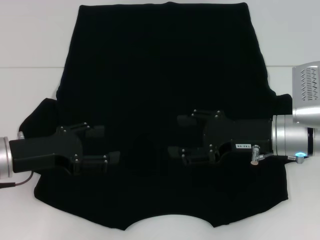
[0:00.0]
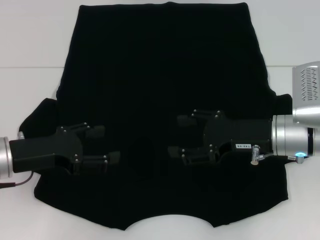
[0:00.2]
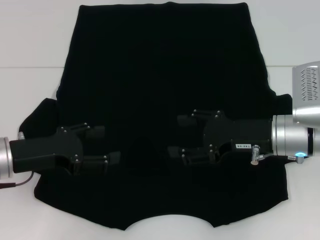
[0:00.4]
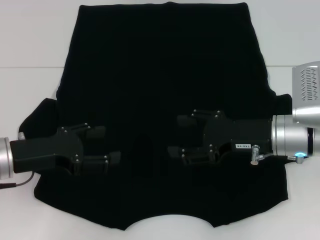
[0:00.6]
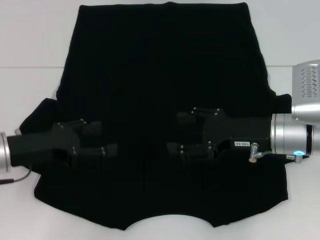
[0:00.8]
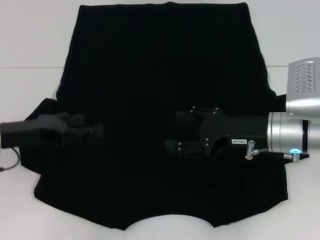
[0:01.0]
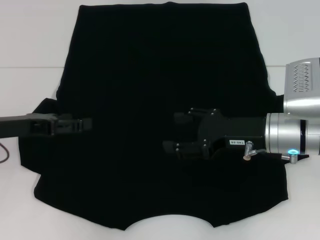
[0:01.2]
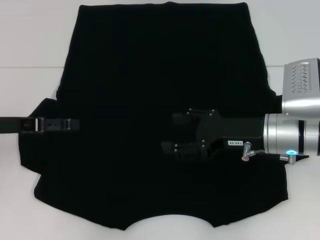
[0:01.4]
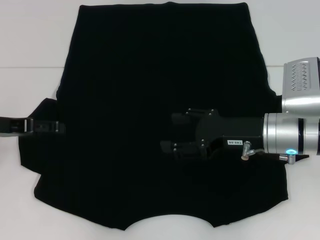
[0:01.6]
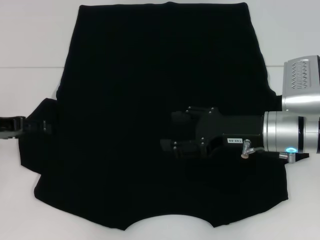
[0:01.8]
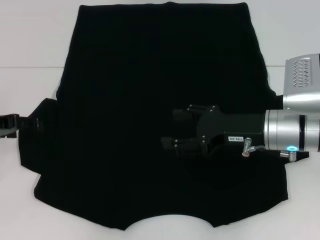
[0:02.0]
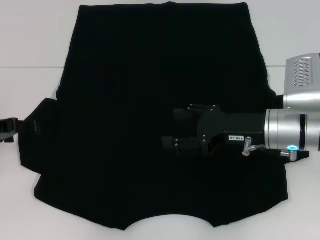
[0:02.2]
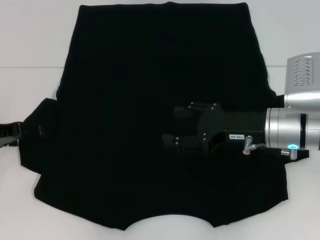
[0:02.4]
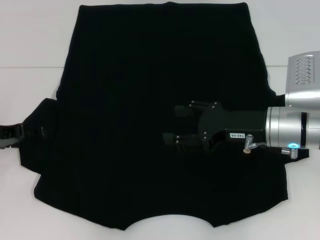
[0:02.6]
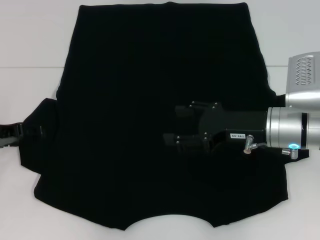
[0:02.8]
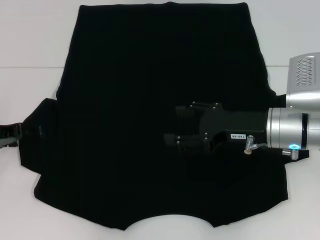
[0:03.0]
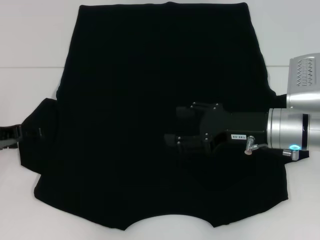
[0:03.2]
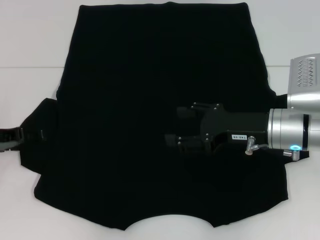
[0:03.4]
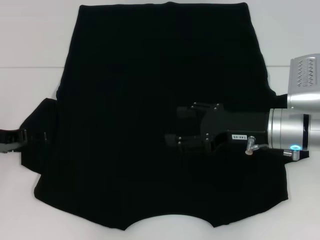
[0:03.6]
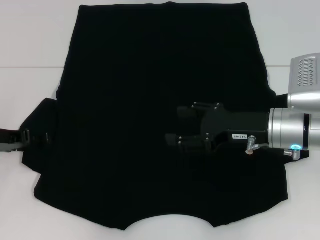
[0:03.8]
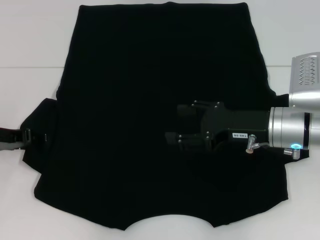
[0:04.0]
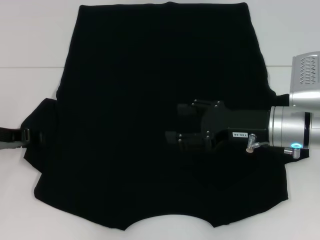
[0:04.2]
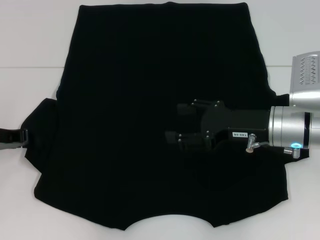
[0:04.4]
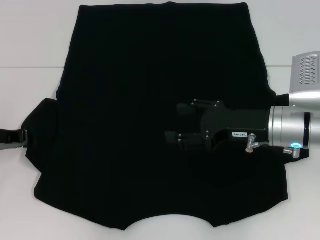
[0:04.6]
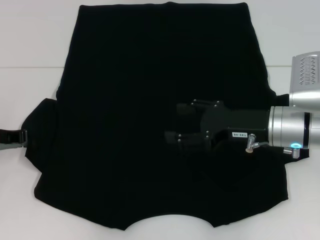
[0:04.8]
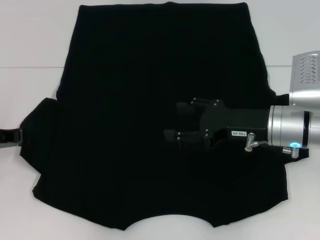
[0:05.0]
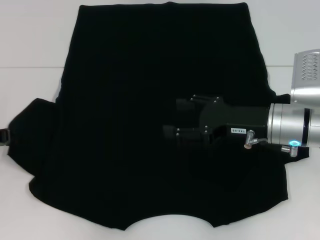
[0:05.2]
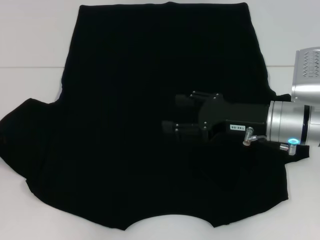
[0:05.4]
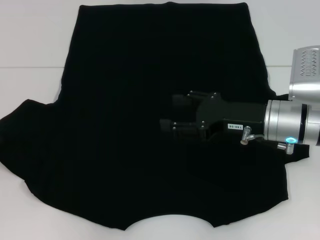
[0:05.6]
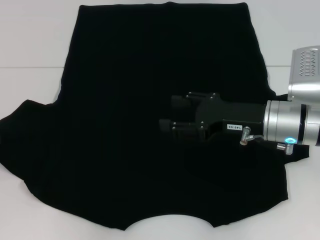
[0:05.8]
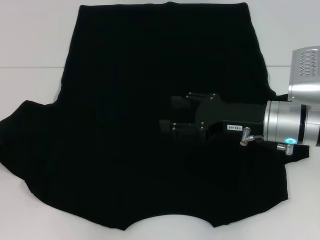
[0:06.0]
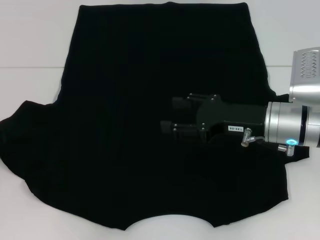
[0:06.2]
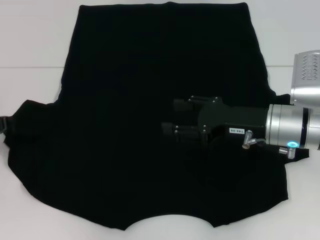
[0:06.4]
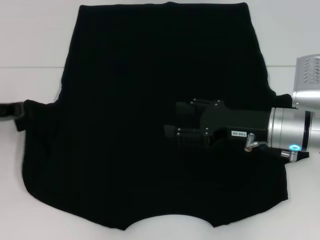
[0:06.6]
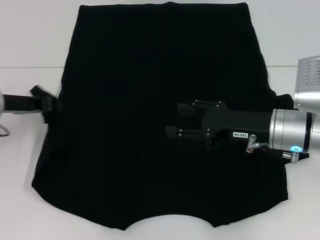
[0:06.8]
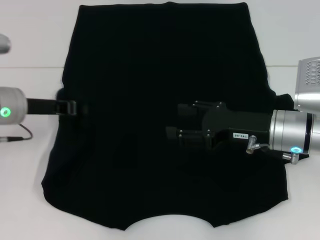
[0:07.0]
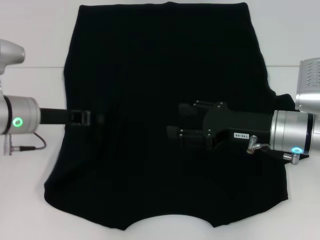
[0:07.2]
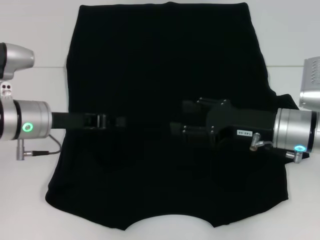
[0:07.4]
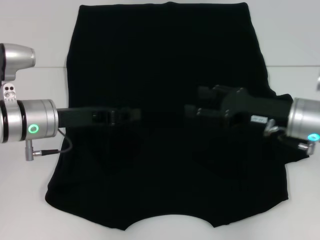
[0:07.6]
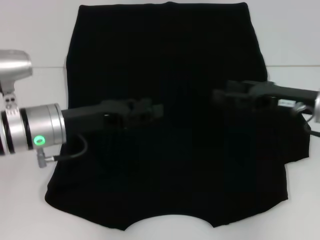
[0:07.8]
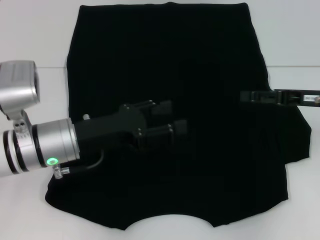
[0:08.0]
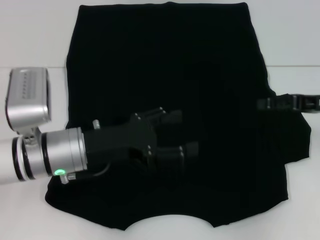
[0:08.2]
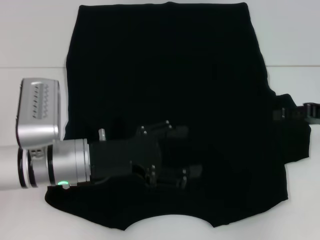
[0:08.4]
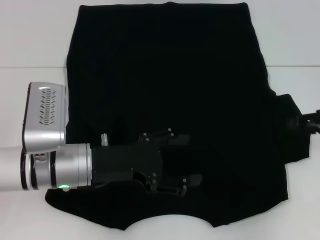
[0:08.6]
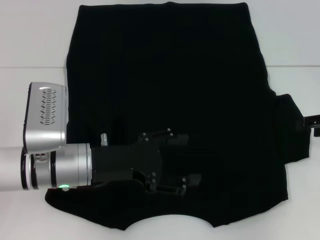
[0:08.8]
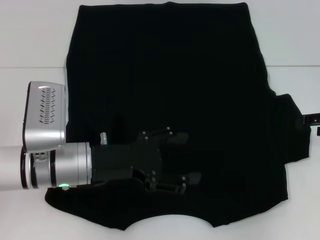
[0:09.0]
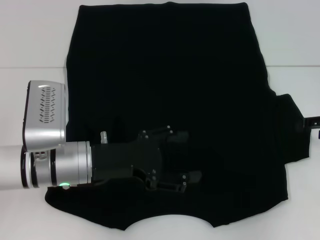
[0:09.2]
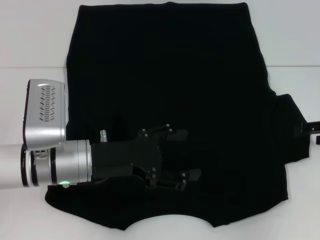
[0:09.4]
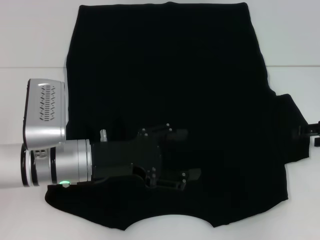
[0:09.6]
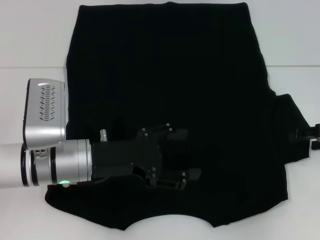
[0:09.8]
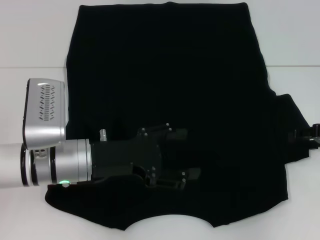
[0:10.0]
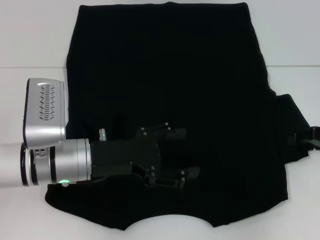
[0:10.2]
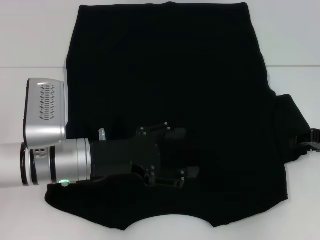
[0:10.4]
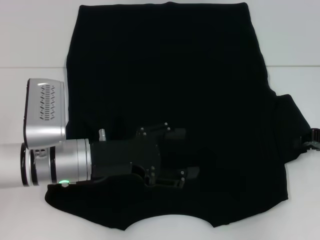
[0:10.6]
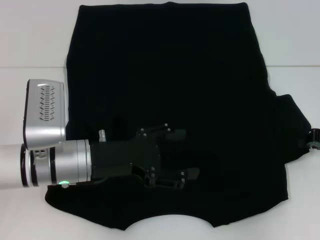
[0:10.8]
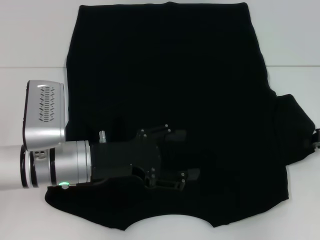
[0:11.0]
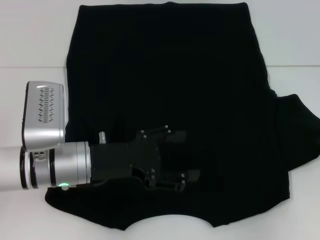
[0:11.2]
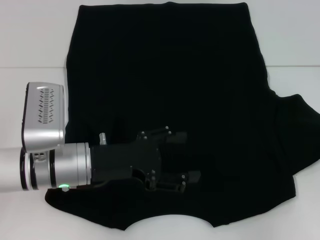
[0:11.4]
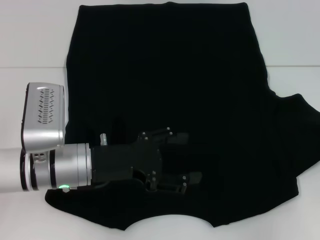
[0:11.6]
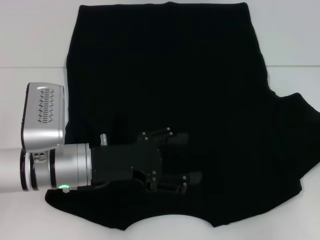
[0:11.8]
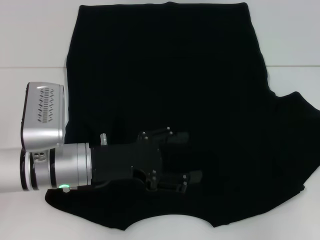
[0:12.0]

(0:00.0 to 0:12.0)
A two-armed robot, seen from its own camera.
Step, 0:00.0 - 0:07.4: Fold the bottom left sleeve with your left hand.
0:00.0 - 0:01.6: The left gripper is displaced to the left by some 5 cm.
0:03.0 - 0:04.4: The left gripper closes up.
0:04.4 - 0:06.0: The left gripper closes up.
0:06.0 - 0:07.6: The left gripper travels to the right by roughly 15 cm.
0:07.6 - 0:09.0: The left gripper travels to the right and backward by roughly 5 cm, and opens up, while the right gripper travels to the right by approximately 15 cm.
0:09.0 - 0:10.4: There are only small adjustments of the grippers.
0:10.4 - 0:12.0: The right gripper closes its fingers.

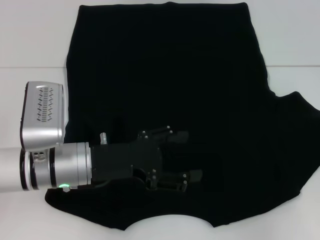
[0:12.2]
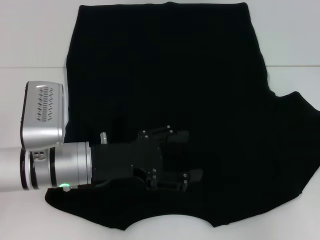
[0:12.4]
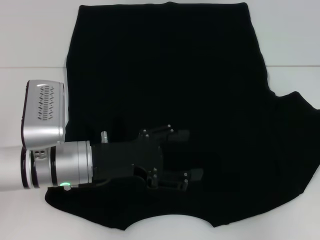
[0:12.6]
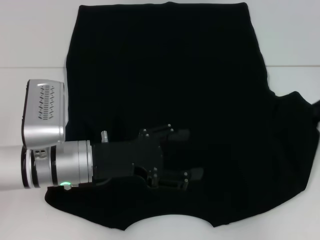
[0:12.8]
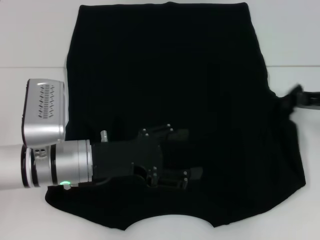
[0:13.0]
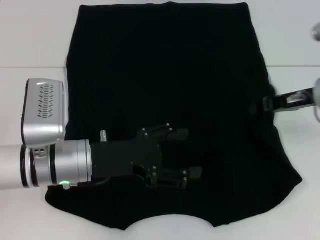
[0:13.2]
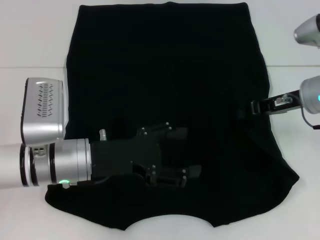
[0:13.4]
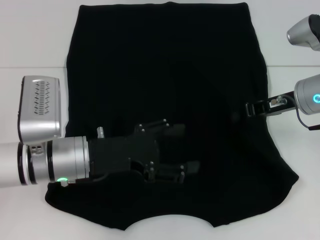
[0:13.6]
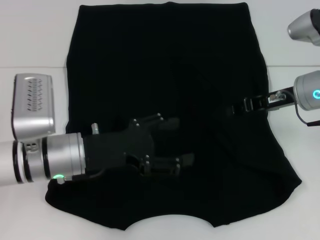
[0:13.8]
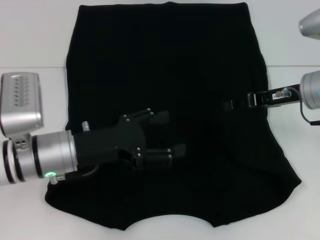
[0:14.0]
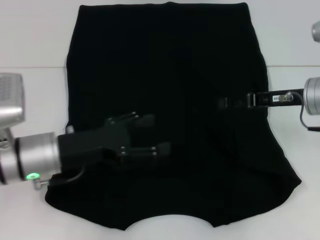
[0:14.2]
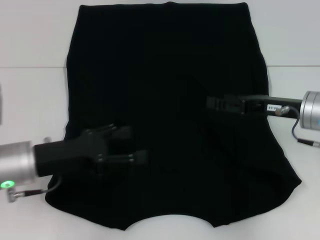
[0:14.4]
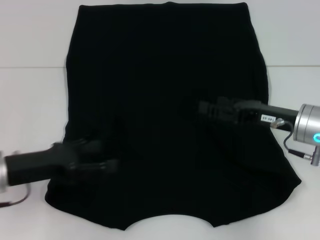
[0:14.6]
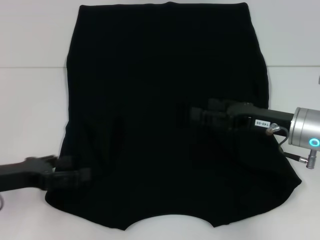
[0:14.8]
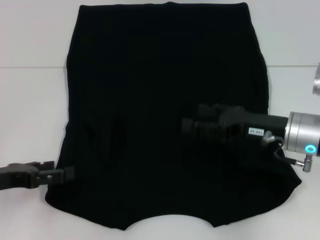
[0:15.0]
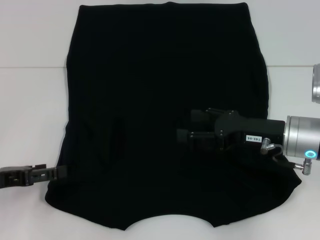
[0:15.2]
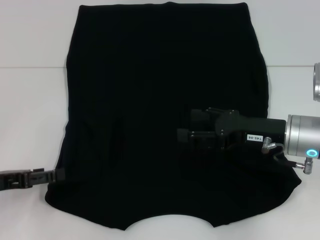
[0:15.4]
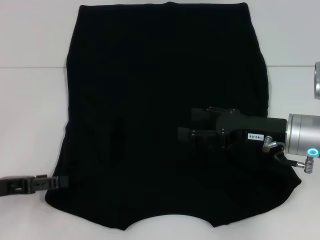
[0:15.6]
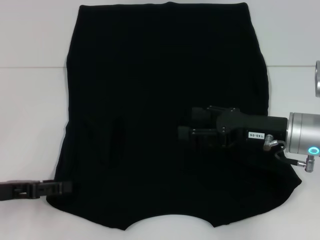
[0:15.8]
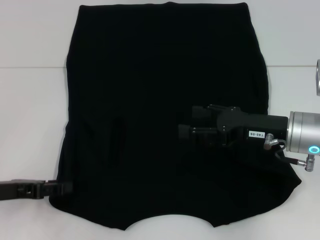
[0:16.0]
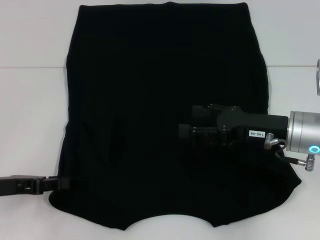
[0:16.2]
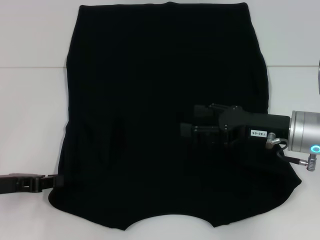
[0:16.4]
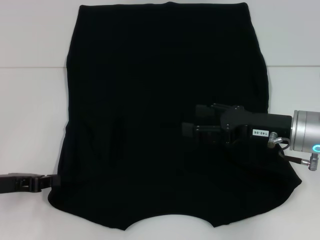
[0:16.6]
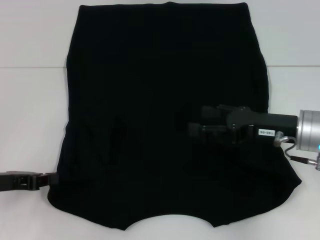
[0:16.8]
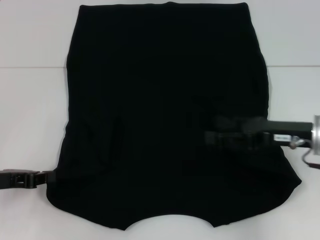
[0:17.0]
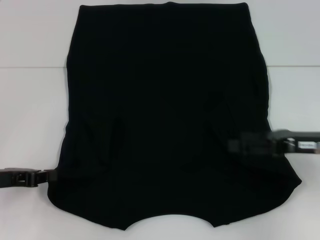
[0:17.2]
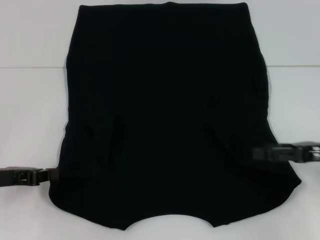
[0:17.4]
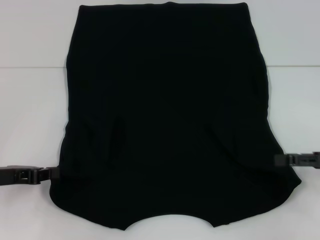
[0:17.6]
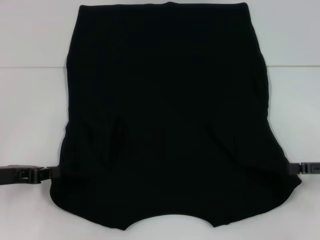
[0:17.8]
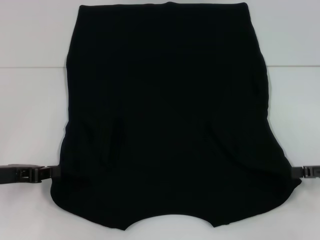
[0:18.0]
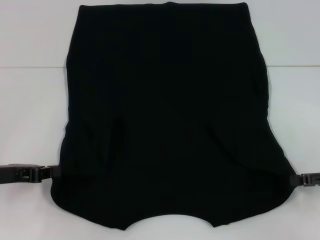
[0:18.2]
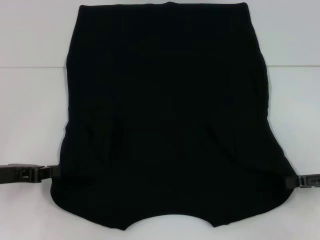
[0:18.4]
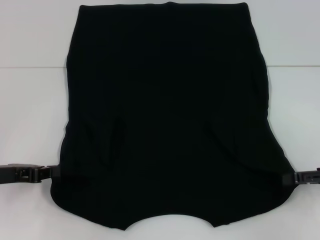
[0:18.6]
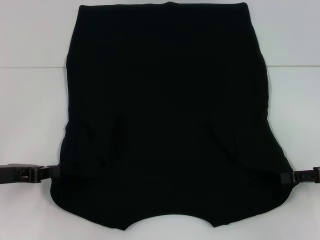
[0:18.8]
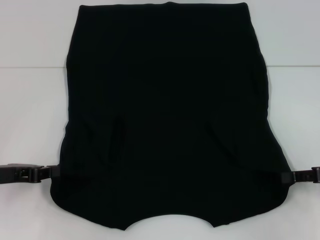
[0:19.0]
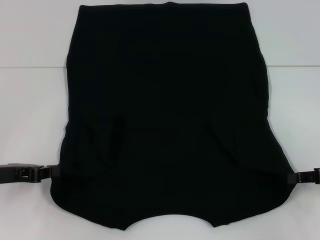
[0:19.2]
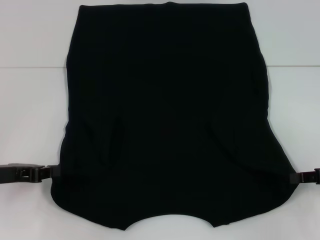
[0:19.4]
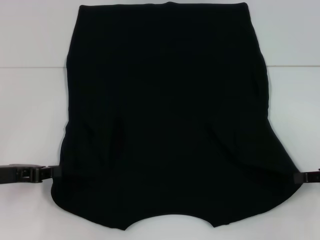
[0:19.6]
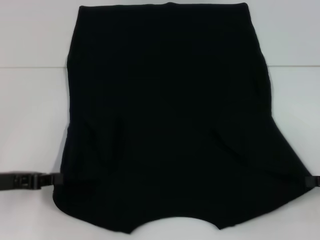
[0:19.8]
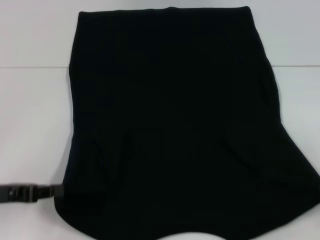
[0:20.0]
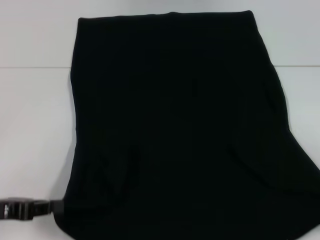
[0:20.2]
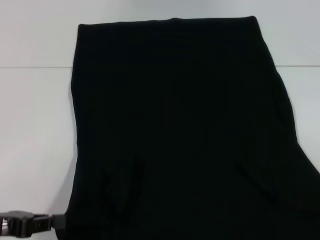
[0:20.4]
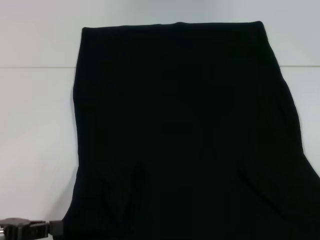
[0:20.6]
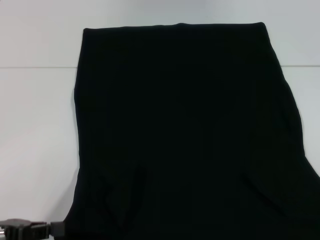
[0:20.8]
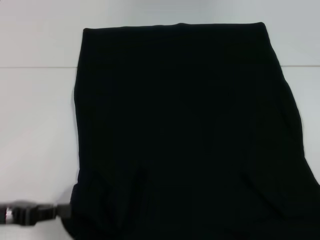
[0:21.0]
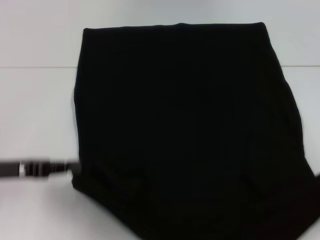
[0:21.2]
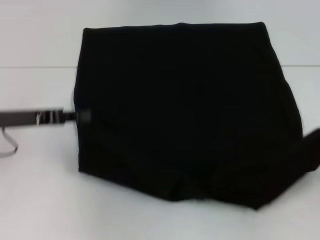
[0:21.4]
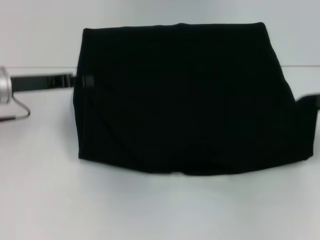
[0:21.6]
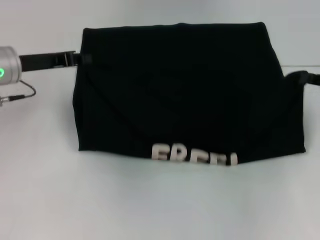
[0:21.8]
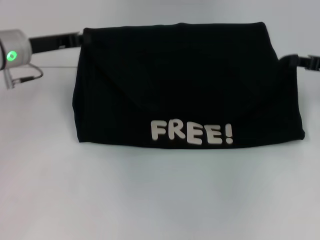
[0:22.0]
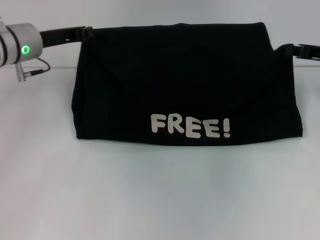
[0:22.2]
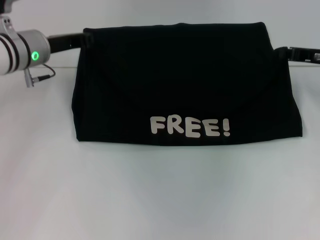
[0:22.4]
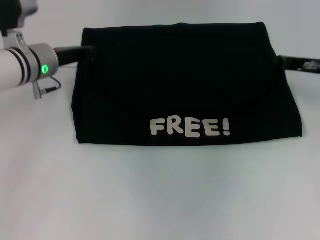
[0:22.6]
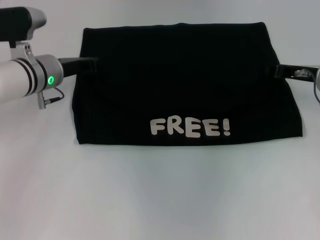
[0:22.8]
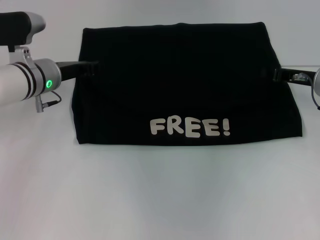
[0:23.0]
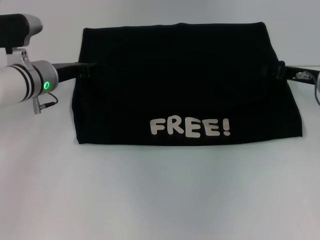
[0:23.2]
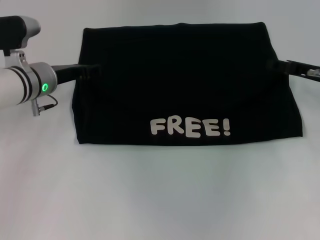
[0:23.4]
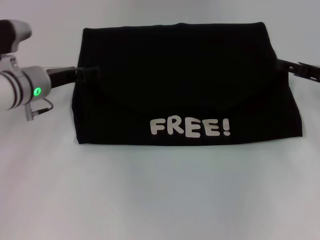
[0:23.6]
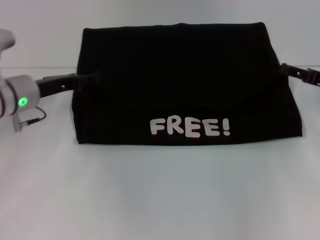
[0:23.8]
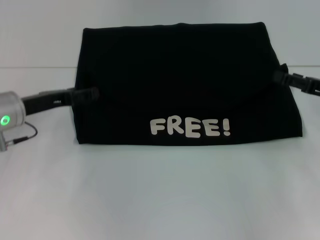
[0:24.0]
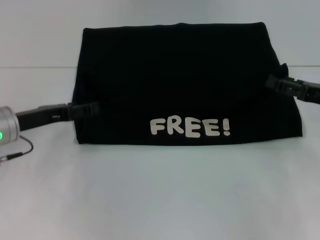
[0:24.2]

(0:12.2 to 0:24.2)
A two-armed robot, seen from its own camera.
Step, 0:14.2 - 0:17.6: Grab the bottom left corner with your left hand.
Step, 0:17.8 - 0:19.8: Grab the bottom right corner with your right hand.
Step, 0:20.0 - 0:23.4: Fold the clothes with your left hand.
Step, 0:20.0 - 0:23.4: Fold the clothes with your right hand.
0:12.2 - 0:13.8: The right gripper goes some 15 cm to the left.
0:13.8 - 0:15.2: The left gripper goes roughly 15 cm to the left. The right gripper is displaced backward by some 5 cm, and opens.
0:15.2 - 0:16.6: The left gripper closes up.
0:16.6 - 0:18.2: The right gripper moves to the right, roughly 15 cm.
0:18.2 - 0:19.8: The right gripper closes its fingers.
0:21.2 - 0:22.6: The right gripper goes roughly 25 cm forward and to the left. The left gripper moves forward and to the right, some 20 cm.
0:22.6 - 0:24.2: The left gripper moves backward and to the left, approximately 10 cm, and opens; the right gripper travels backward by some 10 cm, and opens its fingers.
